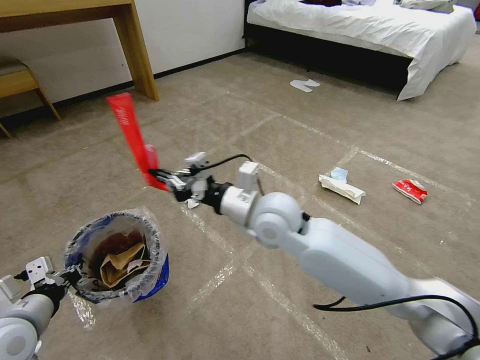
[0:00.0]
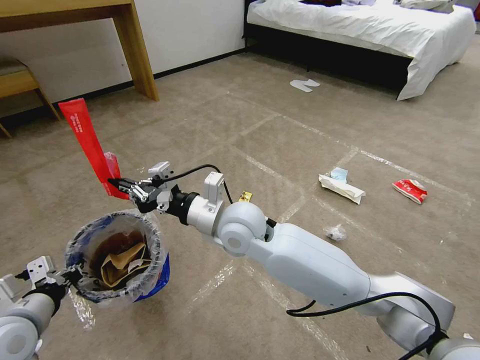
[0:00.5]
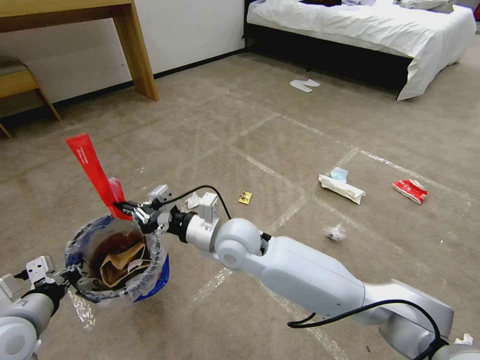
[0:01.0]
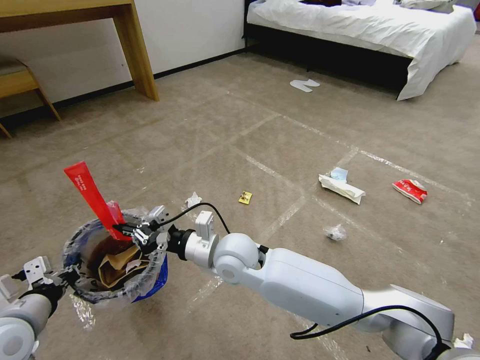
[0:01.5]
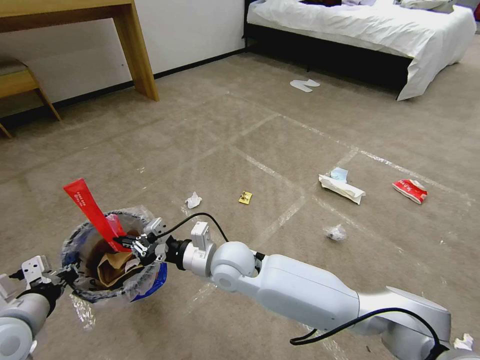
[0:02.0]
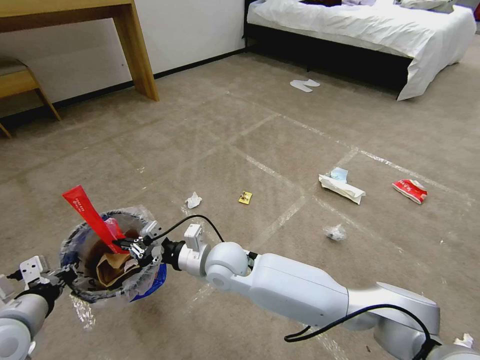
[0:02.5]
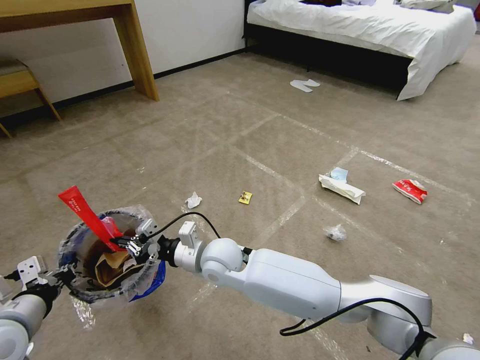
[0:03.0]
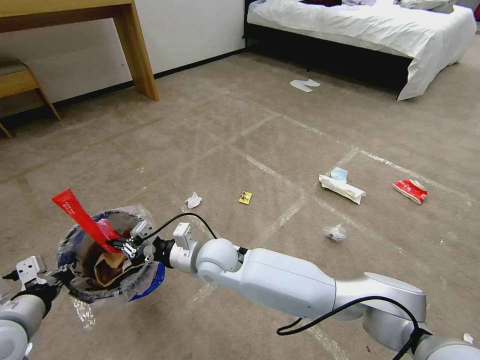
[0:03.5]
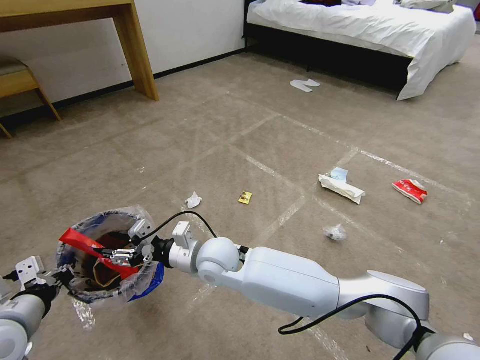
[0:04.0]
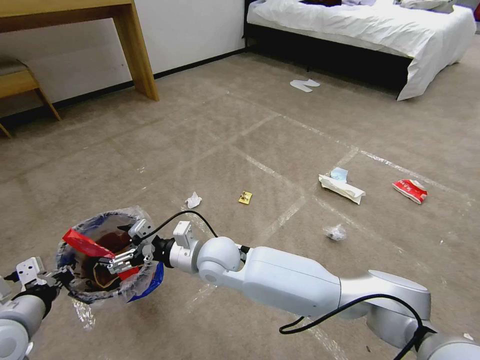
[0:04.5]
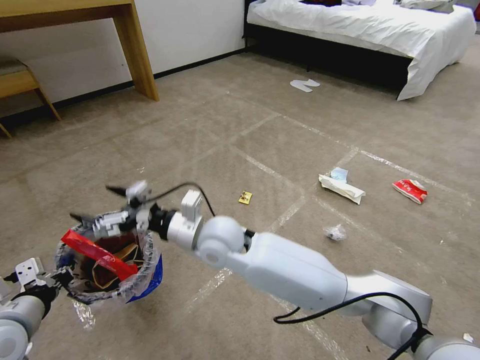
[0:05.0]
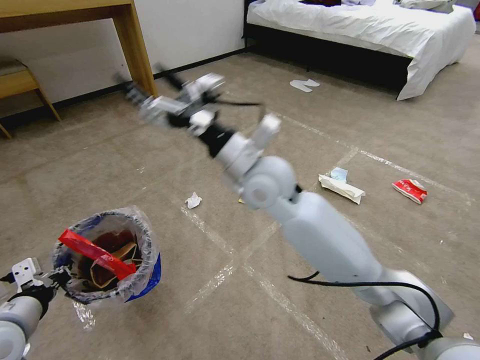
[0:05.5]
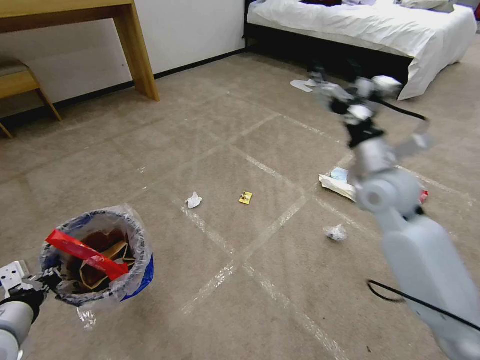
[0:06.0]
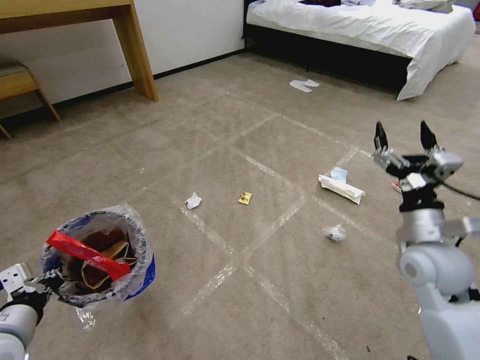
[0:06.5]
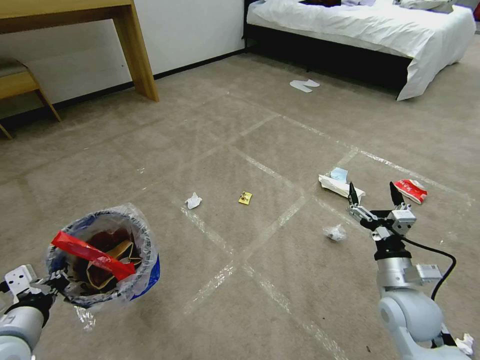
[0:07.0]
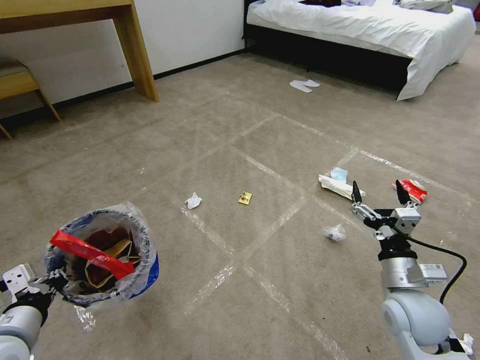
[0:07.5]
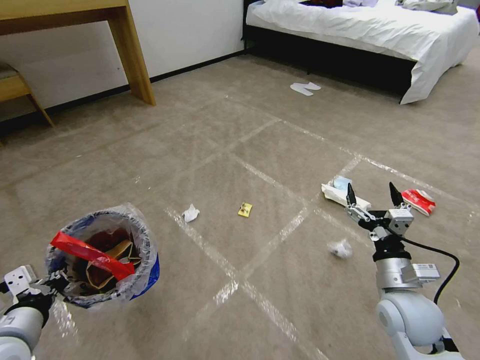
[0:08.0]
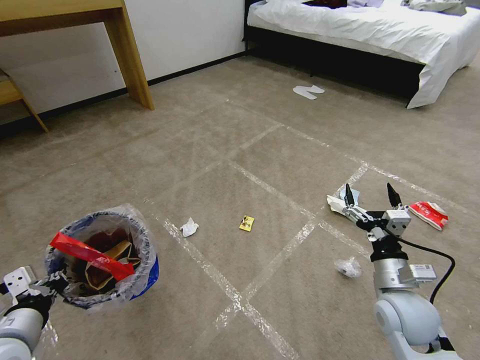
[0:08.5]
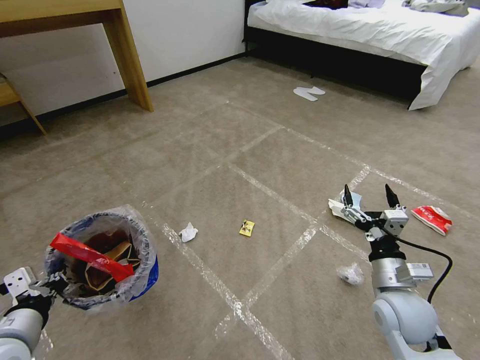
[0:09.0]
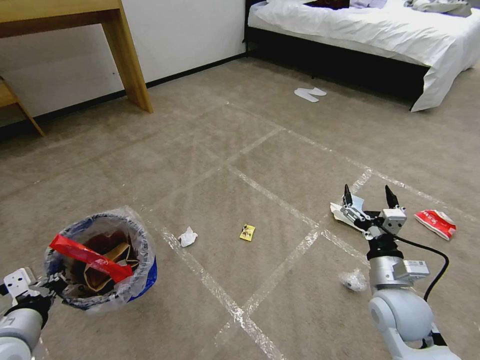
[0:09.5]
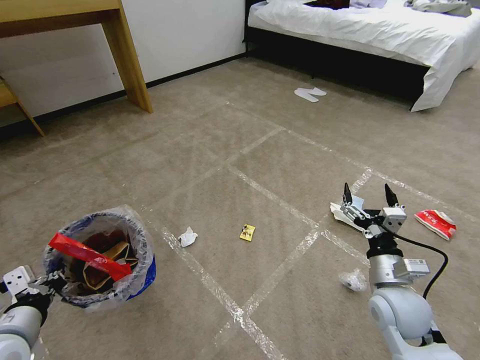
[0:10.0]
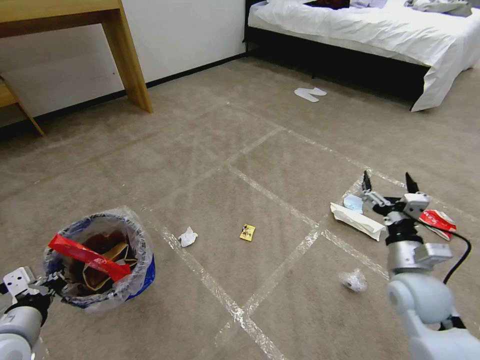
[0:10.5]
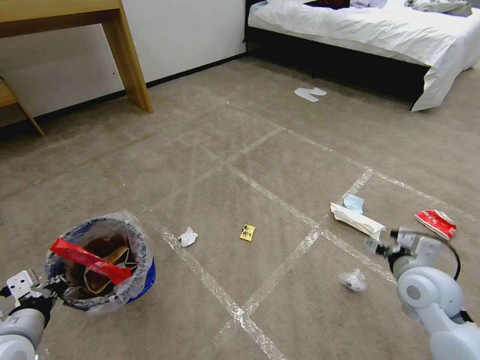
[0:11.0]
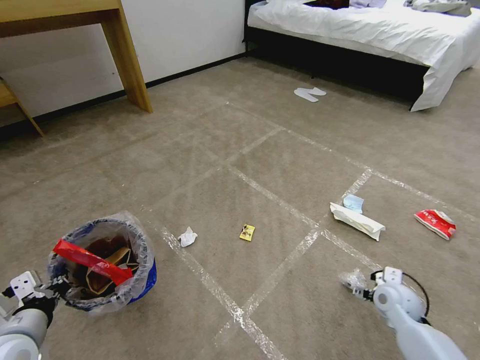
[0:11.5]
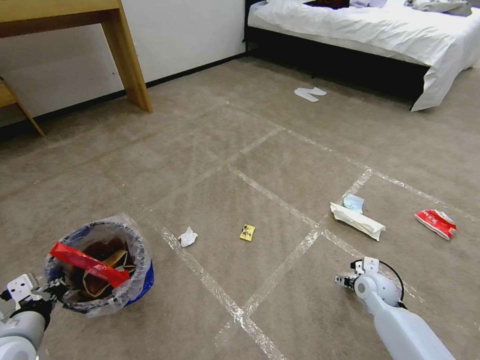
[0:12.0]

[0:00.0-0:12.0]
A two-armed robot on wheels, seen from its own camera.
Task of the whole recording: Pick up the trash bin and place the garbage on the floor into it.
0:00.0 to 0:02.0: The right gripper goes approximately 15 cm downward and to the left.
0:02.0 to 0:04.0: The right gripper opens its fingers.
0:04.0 to 0:06.0: The right gripper shifts about 40 cm to the right and upward, and opens.
0:06.0 to 0:08.0: The right gripper is displaced downward and backward by some 25 cm.
0:08.0 to 0:10.0: The grippers move only a little.
0:10.0 to 0:12.0: The right gripper goes roughly 15 cm downward, forward and to the right.

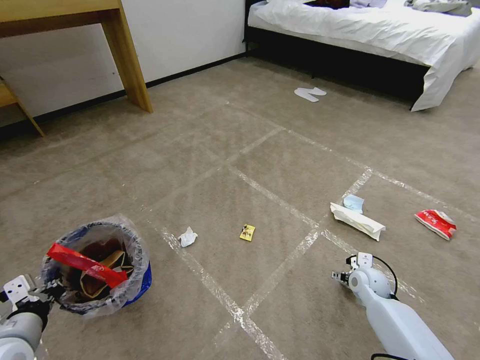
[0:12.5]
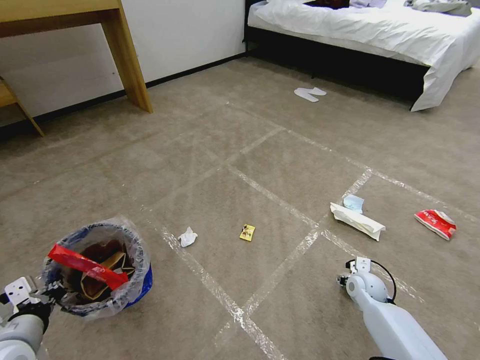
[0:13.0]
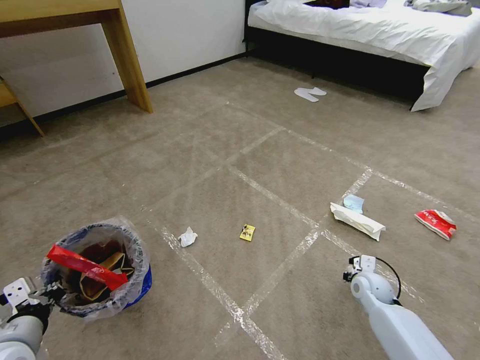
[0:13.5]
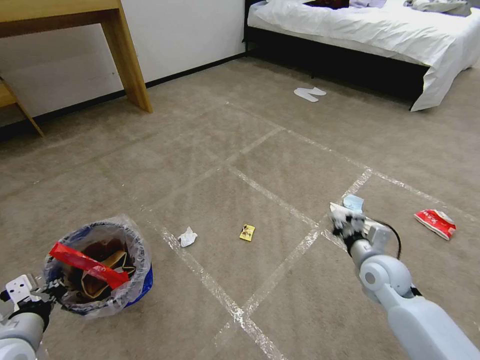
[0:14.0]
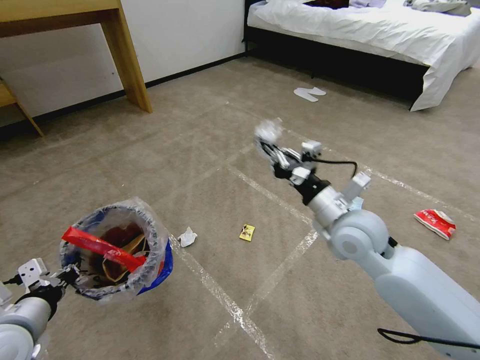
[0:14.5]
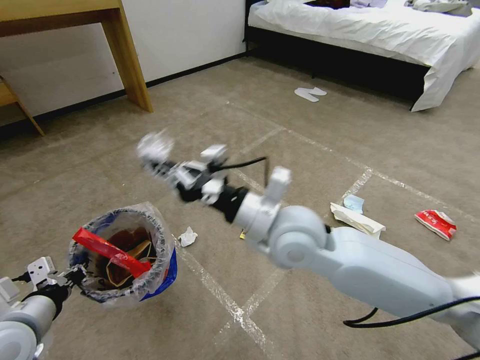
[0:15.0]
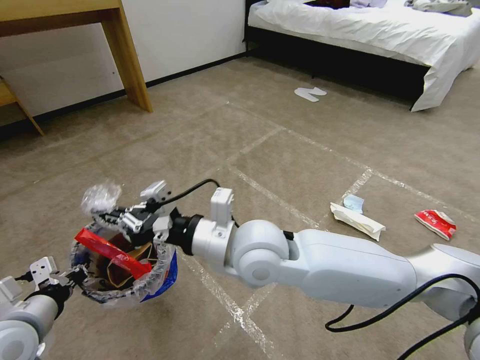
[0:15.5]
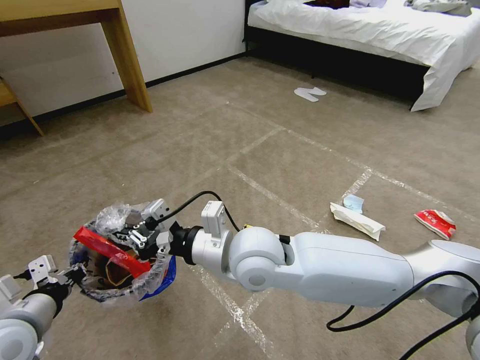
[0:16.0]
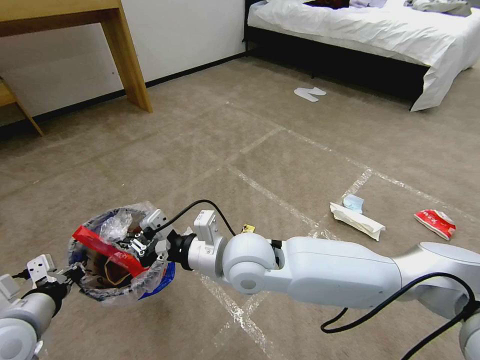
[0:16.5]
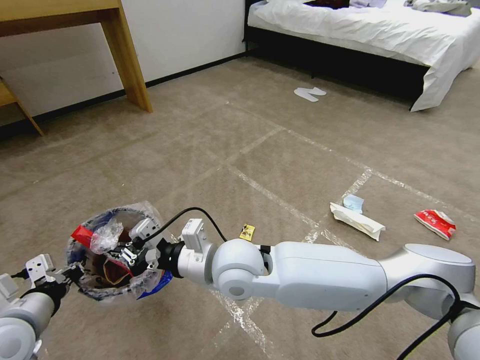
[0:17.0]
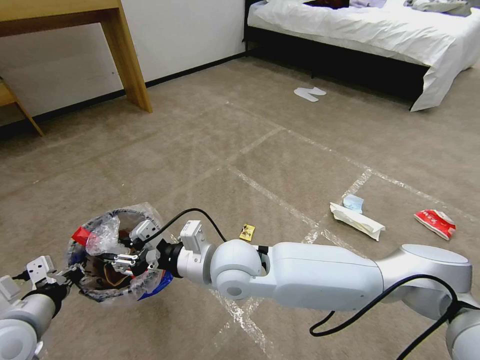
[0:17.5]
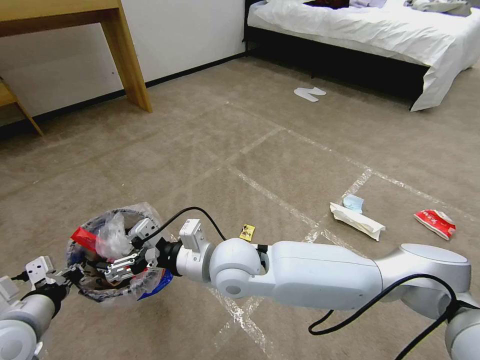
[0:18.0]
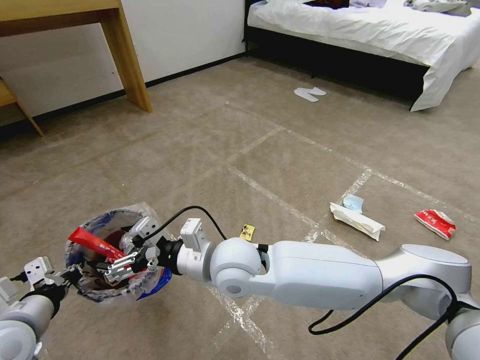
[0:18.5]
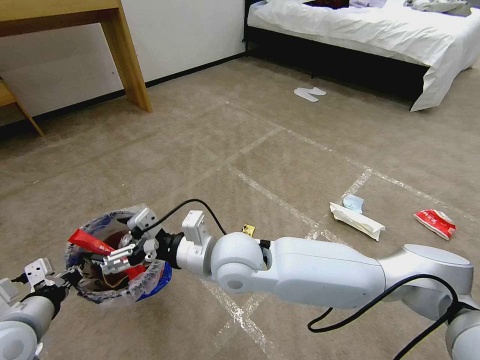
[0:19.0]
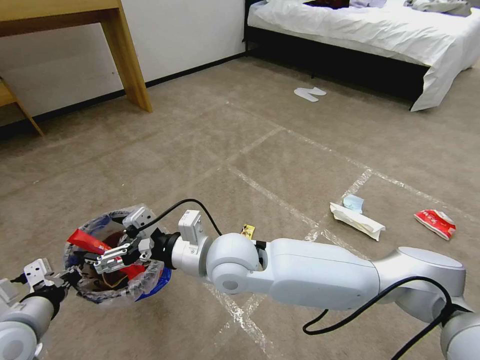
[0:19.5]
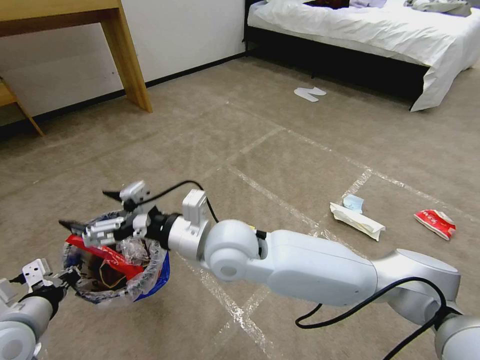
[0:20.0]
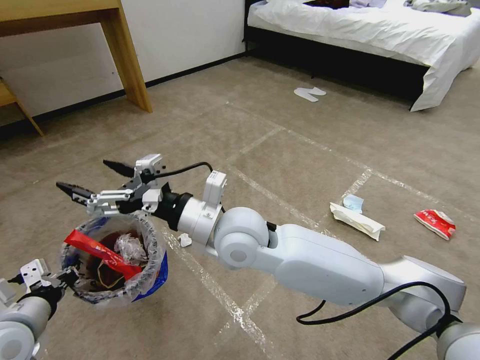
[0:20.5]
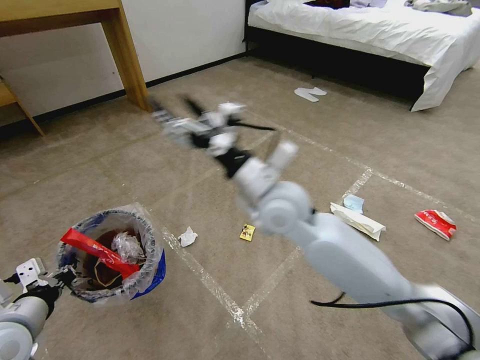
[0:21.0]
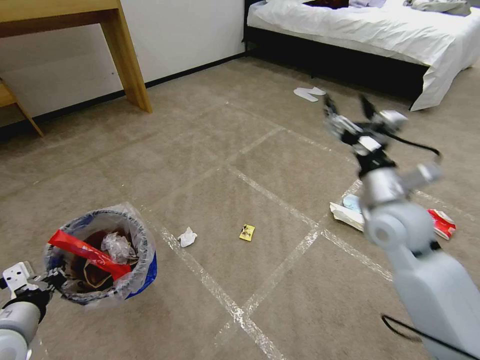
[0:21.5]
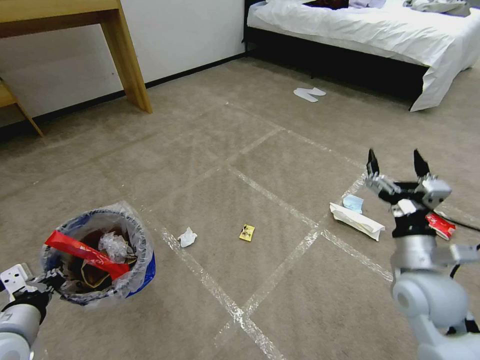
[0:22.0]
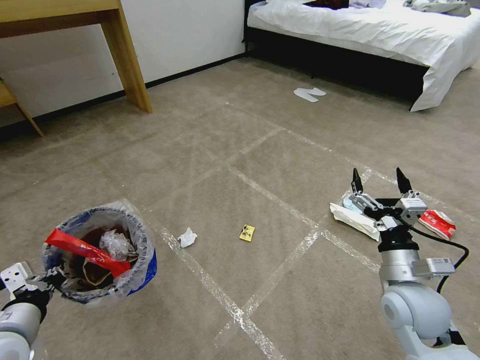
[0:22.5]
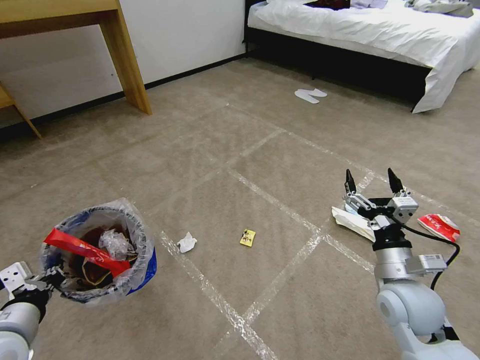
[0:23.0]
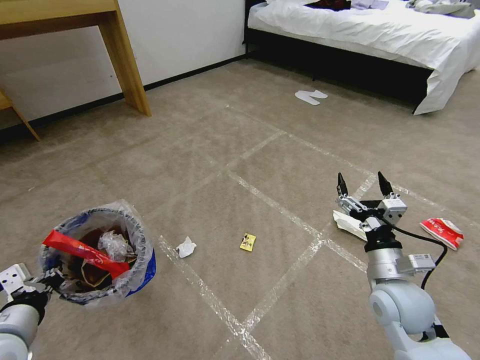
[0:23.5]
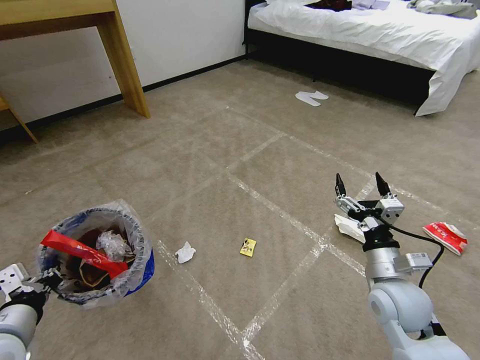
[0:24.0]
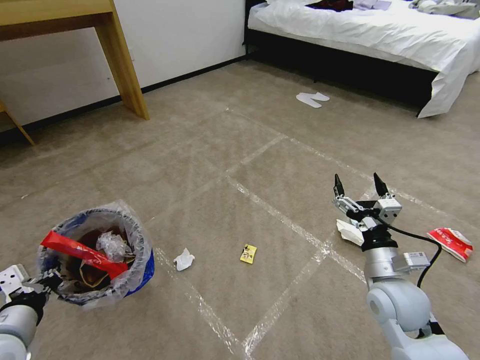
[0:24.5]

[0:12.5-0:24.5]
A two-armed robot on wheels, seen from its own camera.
Task of the whole recording: Pick up the trash bin and place the garbage on the floor into it.
0:12.5 to 0:14.5: The right gripper travels upward and to the left by approximately 30 cm, and closes its fingers.
0:14.5 to 0:16.5: The right gripper goes approximately 20 cm to the left.
0:16.5 to 0:18.5: The right gripper opens up.
0:18.5 to 0:20.5: The right gripper shifts some 5 cm upward.
0:20.5 to 0:22.5: The right gripper goes approximately 30 cm to the right.
0:22.5 to 0:24.5: The grippers stay close to where they were, moving slightly.

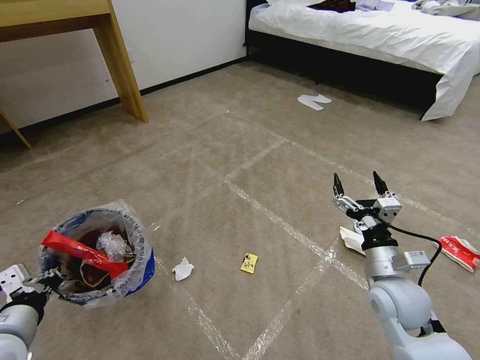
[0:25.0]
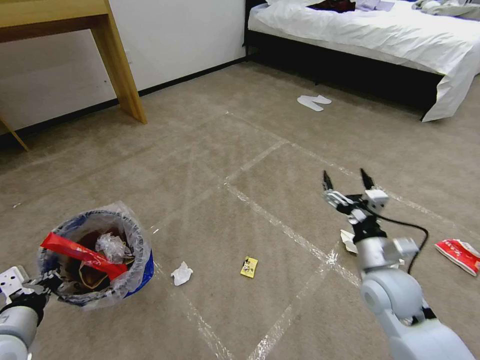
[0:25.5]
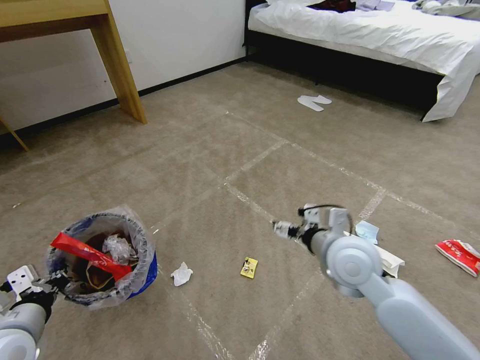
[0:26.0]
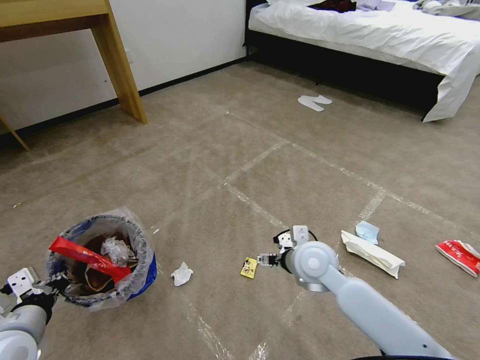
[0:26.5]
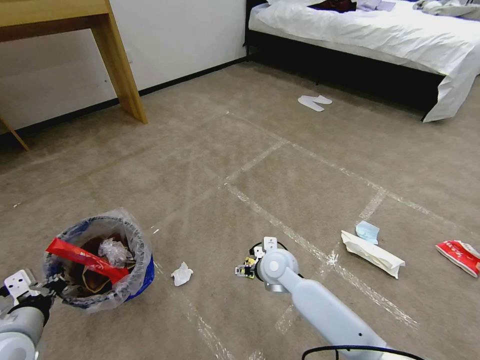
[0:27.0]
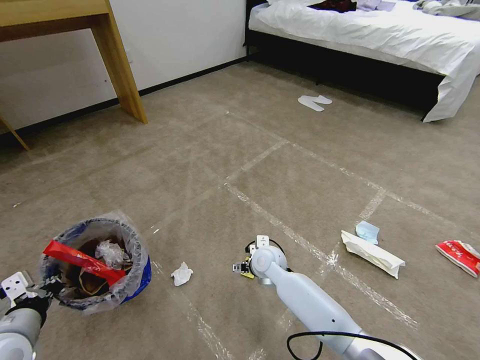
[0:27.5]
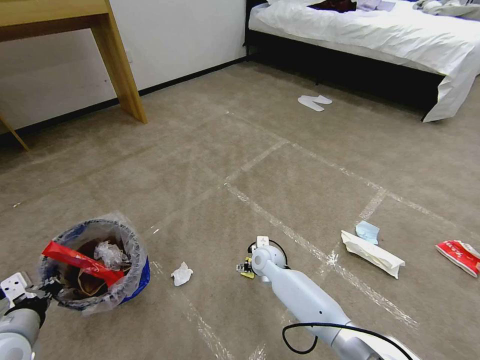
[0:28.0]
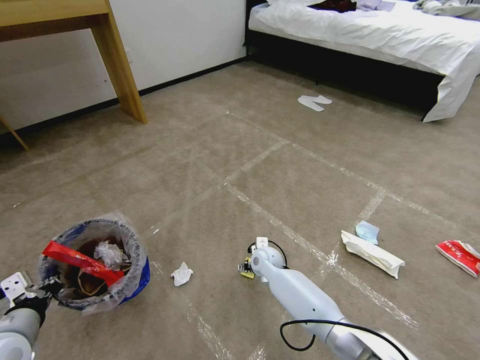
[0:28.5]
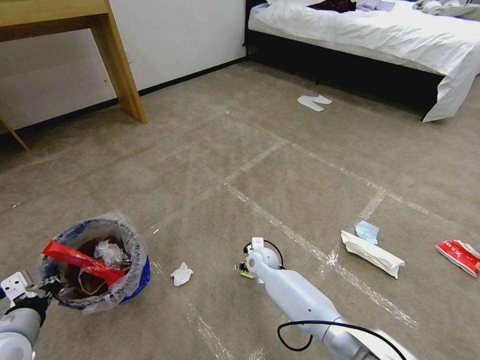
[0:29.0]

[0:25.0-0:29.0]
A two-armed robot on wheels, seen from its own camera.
Task of the whole recording: Pick up the trash bin and place the garbage on the floor into it.
0:25.0 to 0:27.0: The right gripper moves to the left and forward, some 25 cm.
0:27.0 to 0:29.0: The right gripper shifts about 10 cm downward and forward.
